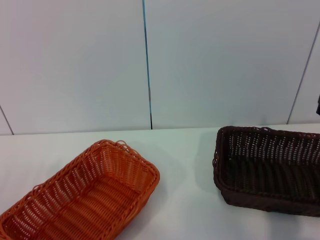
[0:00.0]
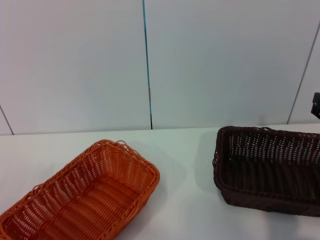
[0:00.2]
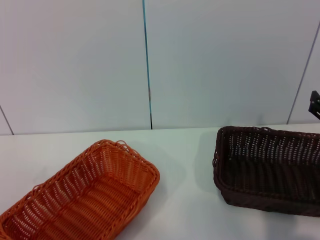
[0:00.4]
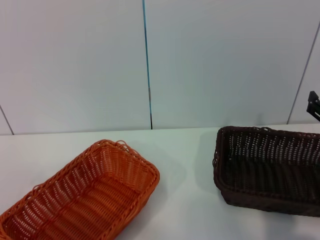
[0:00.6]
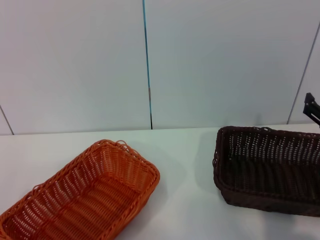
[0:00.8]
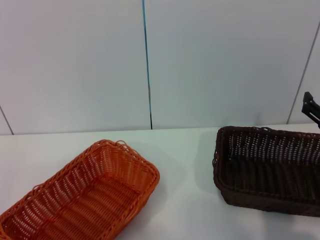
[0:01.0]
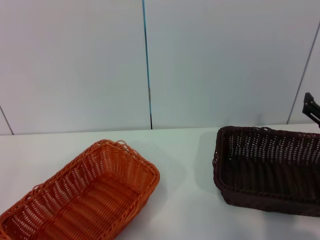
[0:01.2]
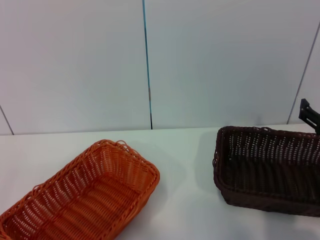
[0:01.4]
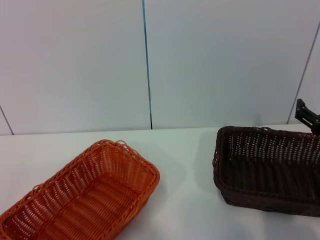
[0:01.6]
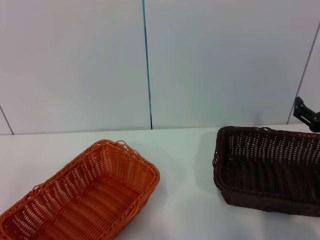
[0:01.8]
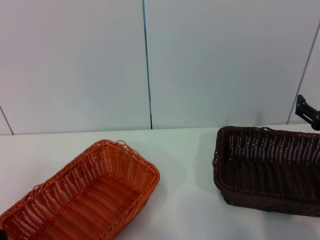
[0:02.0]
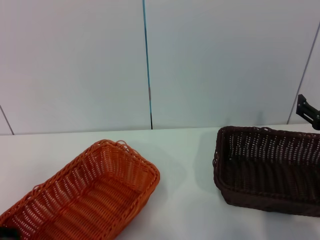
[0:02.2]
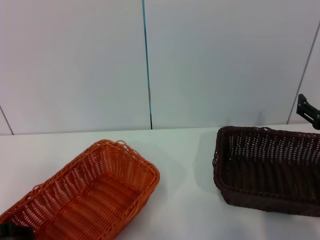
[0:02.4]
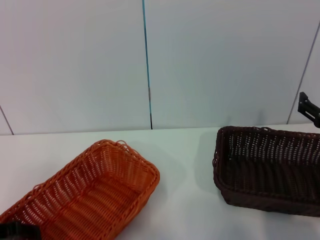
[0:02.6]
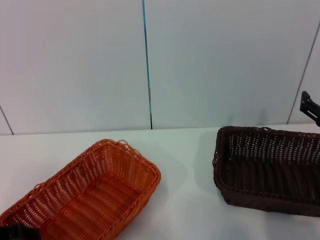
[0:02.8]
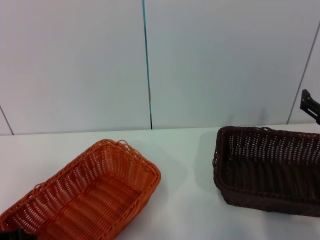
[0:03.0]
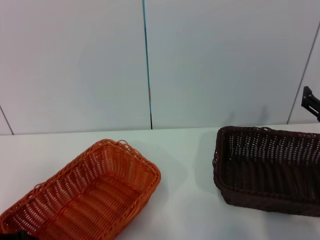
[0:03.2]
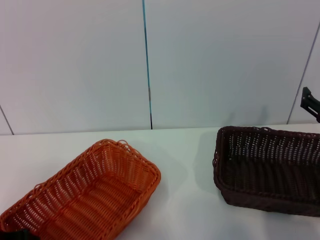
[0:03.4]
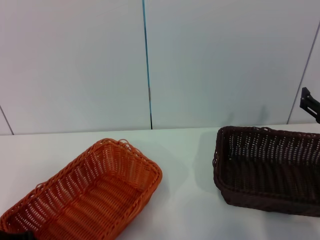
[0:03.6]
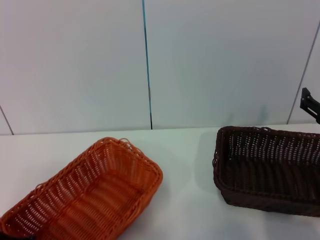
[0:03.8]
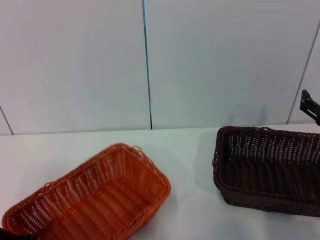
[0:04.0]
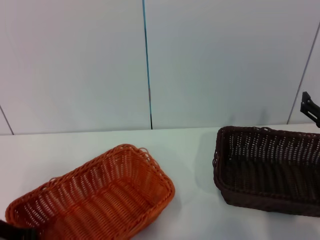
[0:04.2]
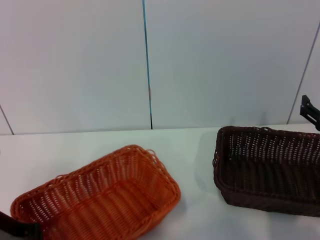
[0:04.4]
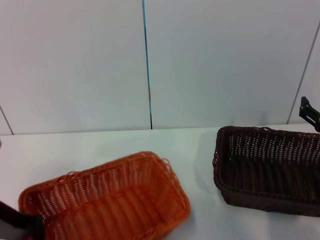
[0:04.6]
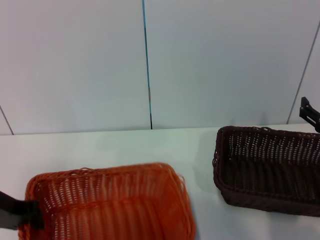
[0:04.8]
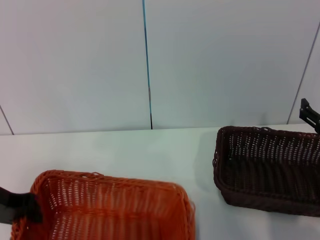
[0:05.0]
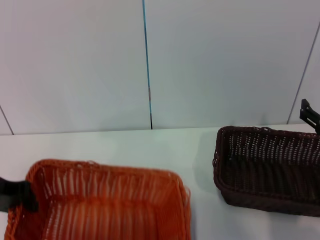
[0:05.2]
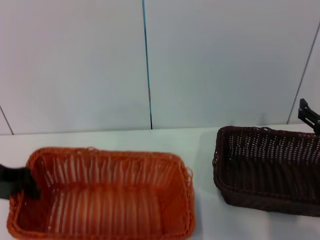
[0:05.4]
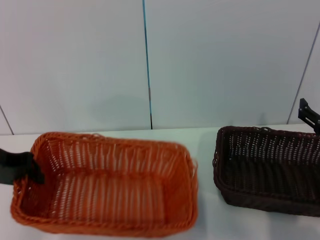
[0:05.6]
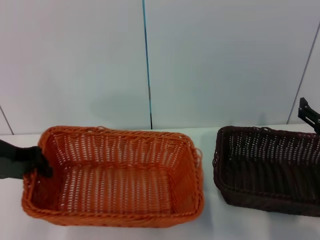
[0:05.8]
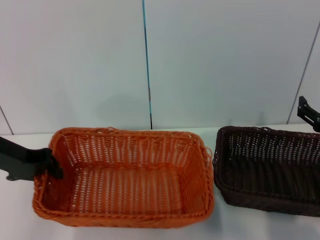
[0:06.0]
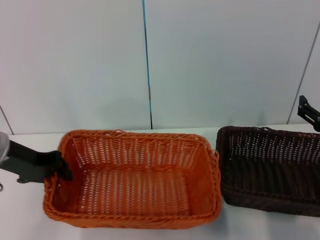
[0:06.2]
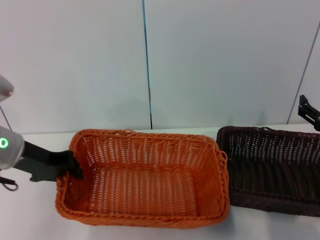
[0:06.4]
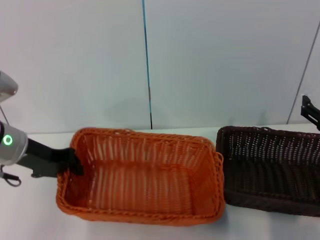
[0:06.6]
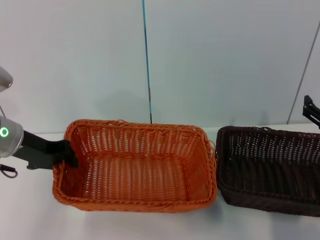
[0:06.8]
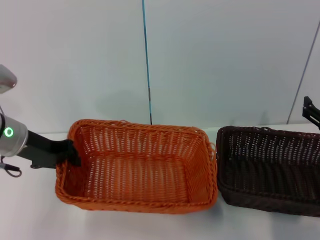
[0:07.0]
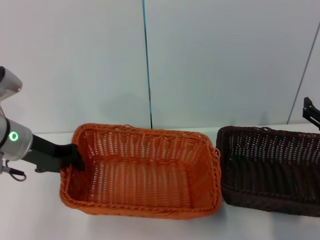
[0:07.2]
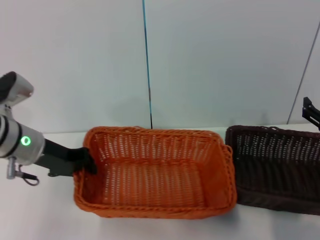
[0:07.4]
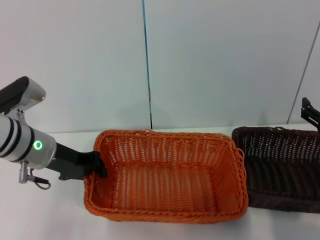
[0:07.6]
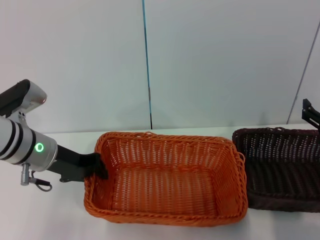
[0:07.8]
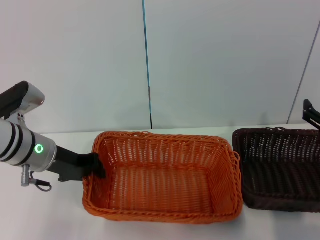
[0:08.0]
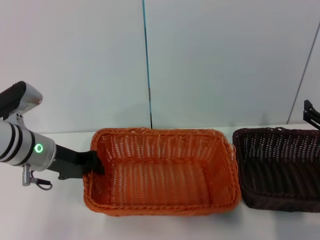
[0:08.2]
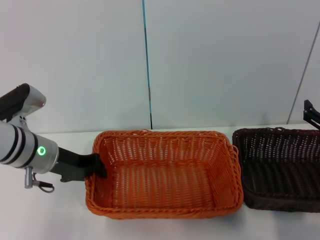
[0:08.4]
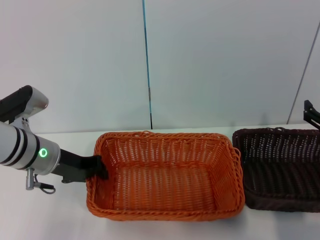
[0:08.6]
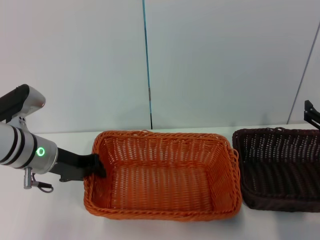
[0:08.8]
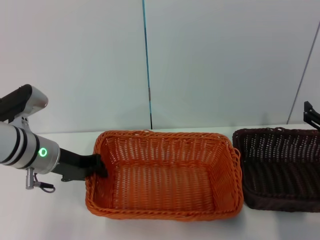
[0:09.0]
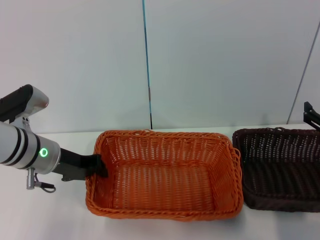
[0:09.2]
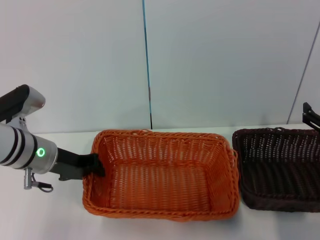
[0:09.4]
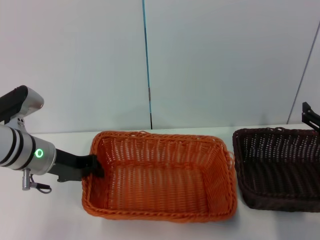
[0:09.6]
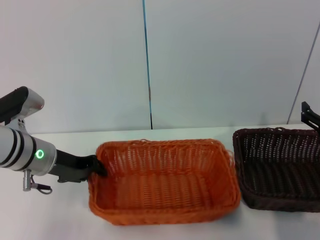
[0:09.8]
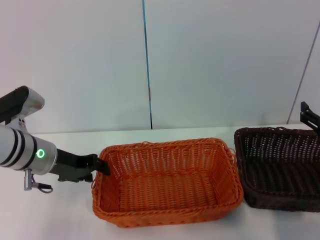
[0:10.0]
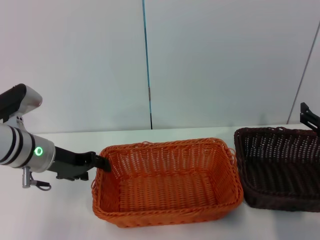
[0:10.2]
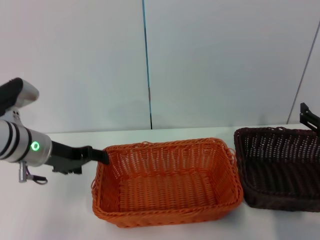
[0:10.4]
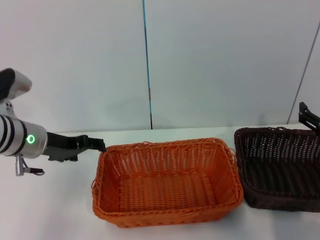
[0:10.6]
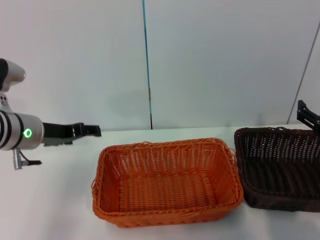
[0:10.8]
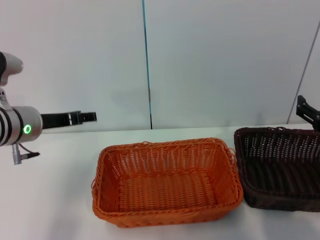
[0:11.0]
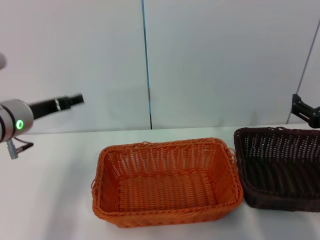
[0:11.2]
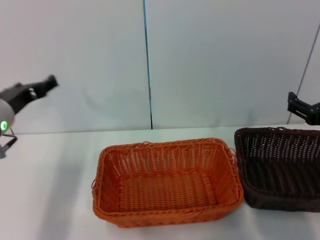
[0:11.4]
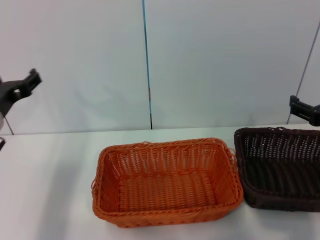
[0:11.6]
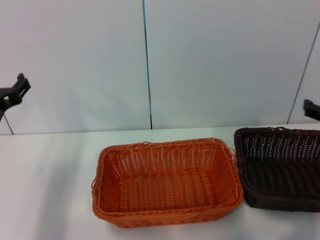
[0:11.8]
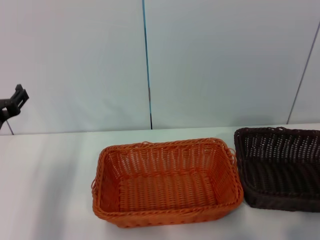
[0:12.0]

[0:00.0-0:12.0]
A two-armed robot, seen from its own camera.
Step, 0:00.0 to 0:05.4: Pick up the light basket with the left gripper.
Step, 0:05.6 to 0:10.0: Place the light basket in the center of view with the left gripper.
0:01.6 to 0:03.0: The left gripper heads downward and to the right, covering some 10 cm.
0:03.0 to 0:04.4: The left gripper closes up.
0:04.4 to 0:06.0: The left gripper is displaced upward and forward by approximately 10 cm.
0:06.0 to 0:07.6: The left gripper heads to the right, covering roughly 5 cm.
0:07.6 to 0:09.0: The grippers stay close to where they were, moving slightly.
0:09.0 to 0:10.4: The left gripper opens up.
0:10.4 to 0:12.0: The right gripper goes roughly 5 cm upward. Meanwhile the left gripper heads backward, covering roughly 5 cm, and opens up.

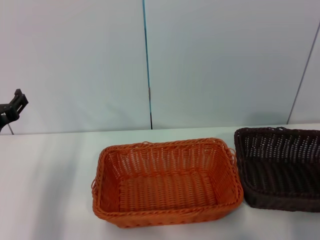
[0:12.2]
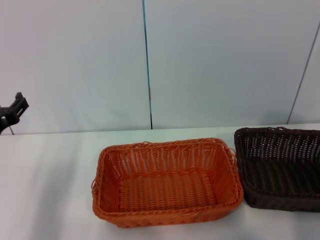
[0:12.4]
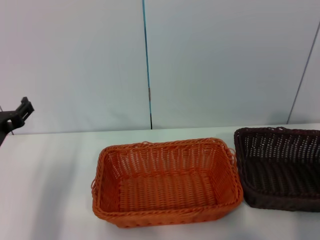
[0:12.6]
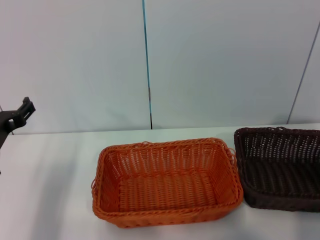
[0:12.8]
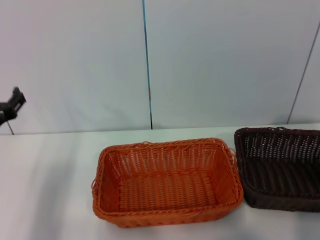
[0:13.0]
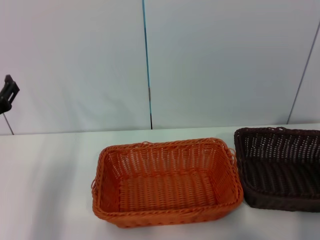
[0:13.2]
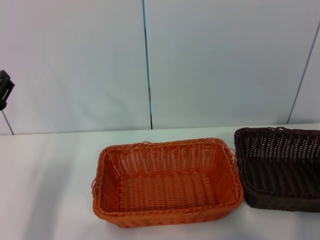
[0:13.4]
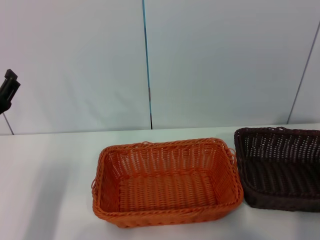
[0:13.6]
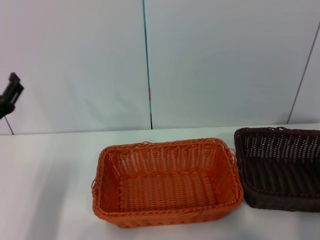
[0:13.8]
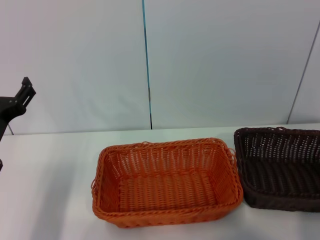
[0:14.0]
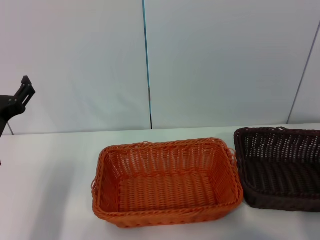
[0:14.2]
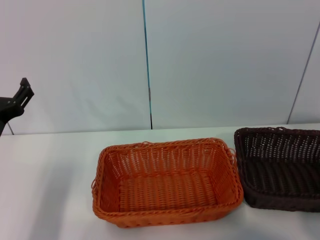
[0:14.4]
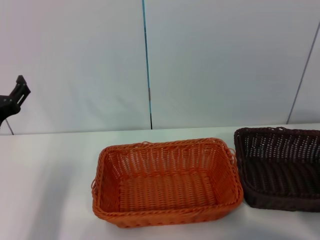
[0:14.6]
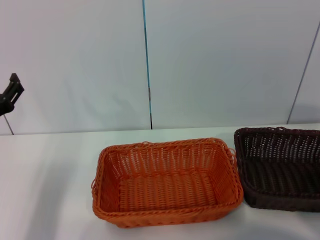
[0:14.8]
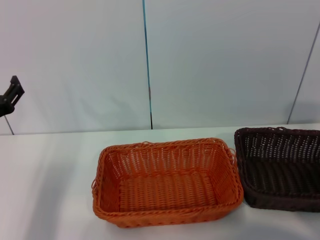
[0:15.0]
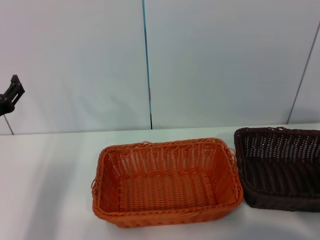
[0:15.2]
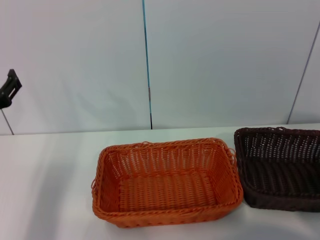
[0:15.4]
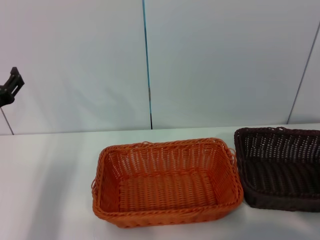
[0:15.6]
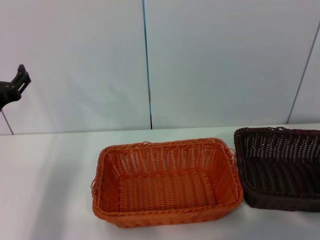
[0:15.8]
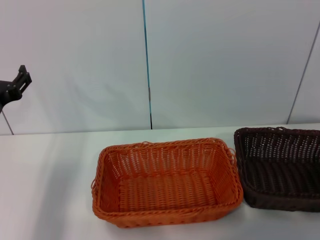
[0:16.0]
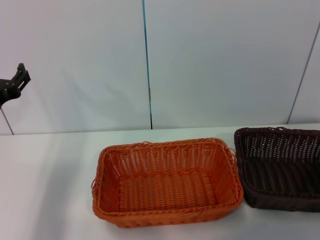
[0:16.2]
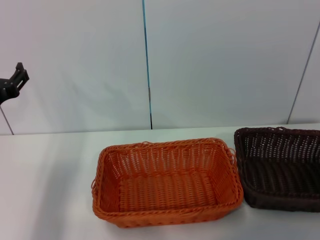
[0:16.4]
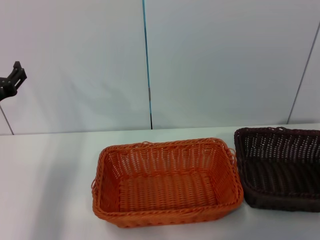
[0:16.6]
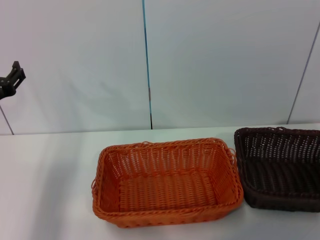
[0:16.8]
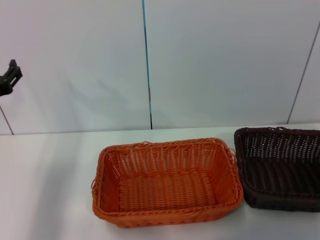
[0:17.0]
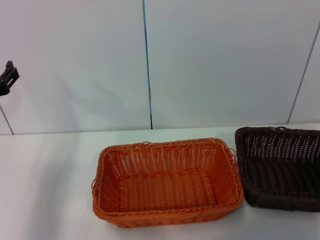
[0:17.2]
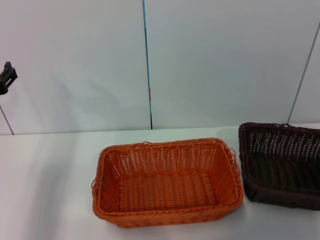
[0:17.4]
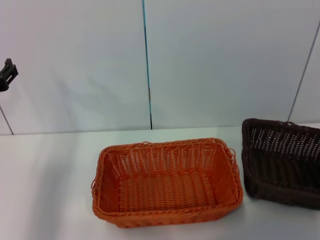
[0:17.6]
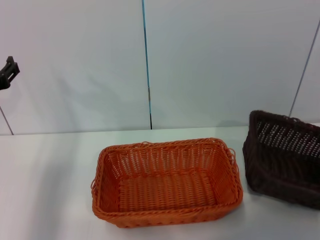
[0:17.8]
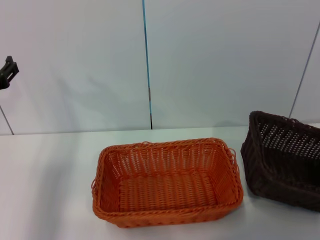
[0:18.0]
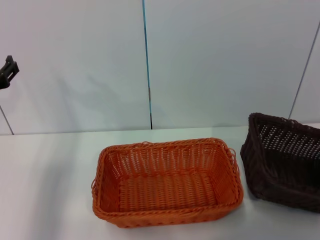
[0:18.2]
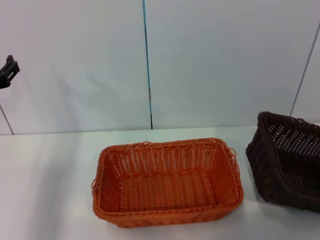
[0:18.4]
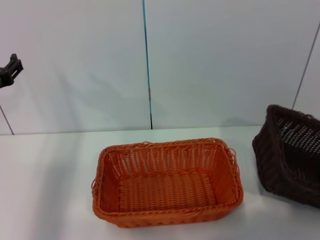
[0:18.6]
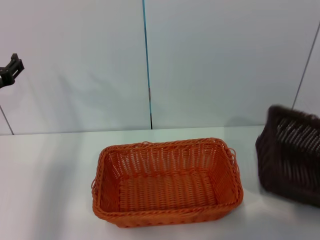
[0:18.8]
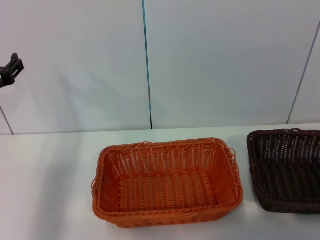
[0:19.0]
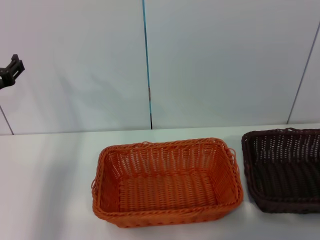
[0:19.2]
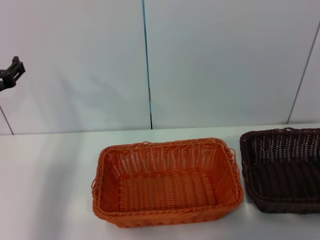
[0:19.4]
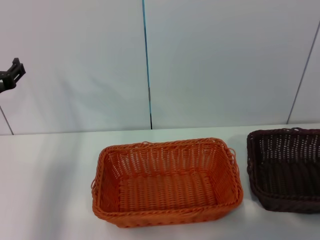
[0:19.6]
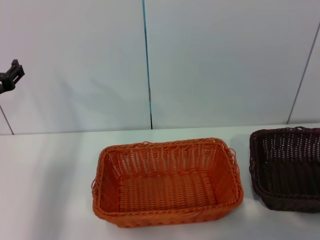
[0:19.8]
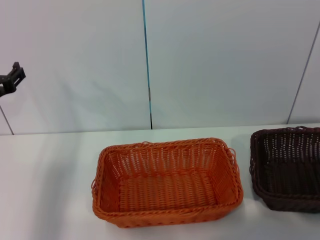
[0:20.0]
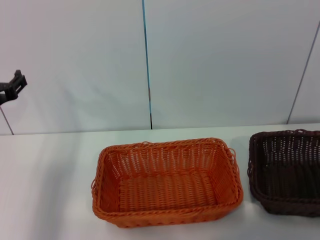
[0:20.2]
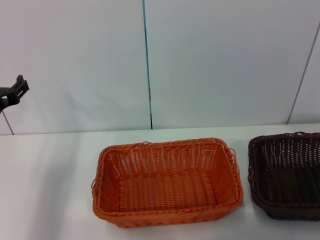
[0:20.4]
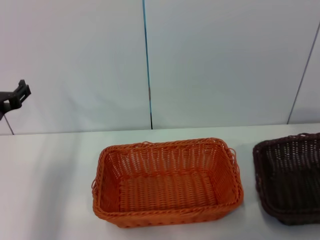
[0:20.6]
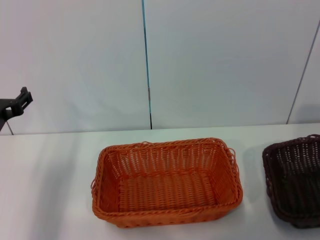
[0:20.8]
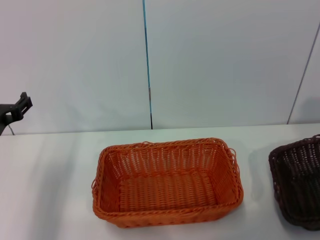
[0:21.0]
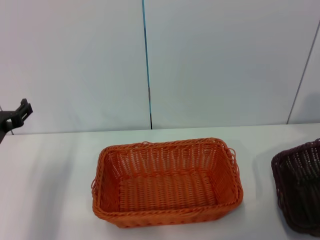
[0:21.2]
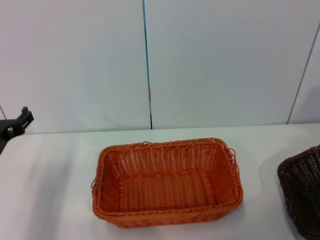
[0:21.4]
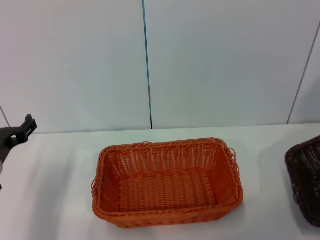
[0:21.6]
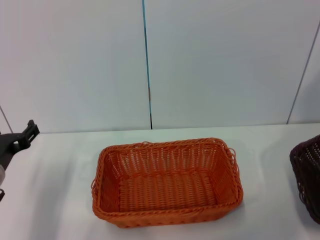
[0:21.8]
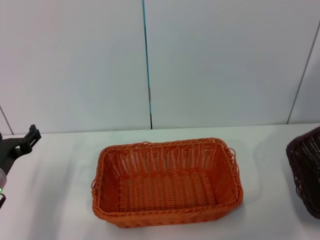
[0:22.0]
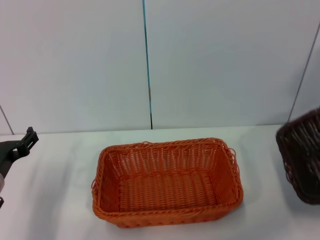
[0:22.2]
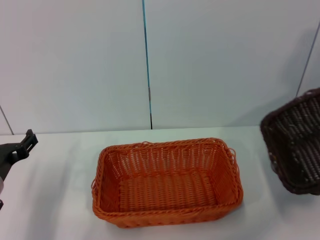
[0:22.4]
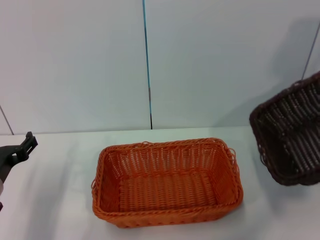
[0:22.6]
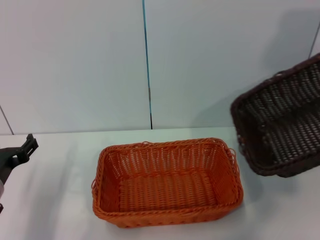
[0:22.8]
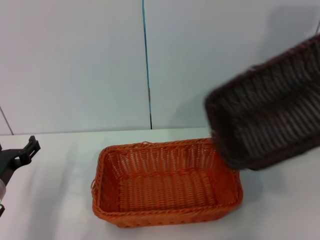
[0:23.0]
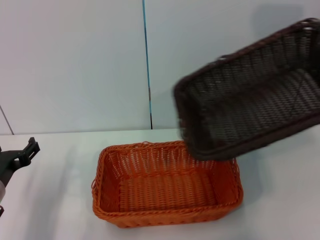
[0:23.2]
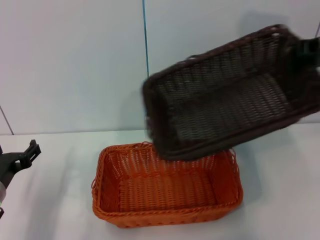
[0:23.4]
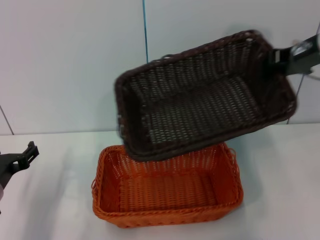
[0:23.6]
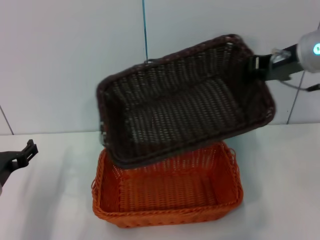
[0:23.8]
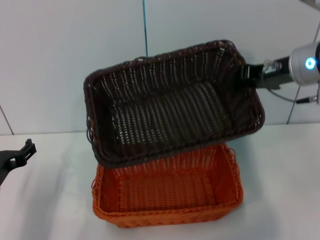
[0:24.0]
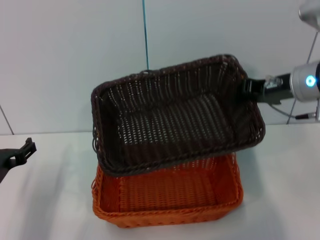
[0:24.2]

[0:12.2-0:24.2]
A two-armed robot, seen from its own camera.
Step, 0:12.2 to 0:18.6: Pick up the dark basket with the right gripper.
0:15.2 to 0:16.6: The right gripper shifts approximately 5 cm downward.
0:16.6 to 0:18.2: There are only small adjustments of the grippers.
0:18.2 to 0:19.8: The right gripper moves upward, approximately 5 cm, and closes its fingers.
0:19.8 to 0:21.2: The left gripper ends up roughly 5 cm from where it was. The right gripper goes some 10 cm upward.
0:21.2 to 0:22.6: The right gripper heads upward and to the left, covering roughly 15 cm. Meanwhile the left gripper ends up approximately 5 cm from where it was.
0:22.6 to 0:24.2: The right gripper shifts about 20 cm to the left and downward.
